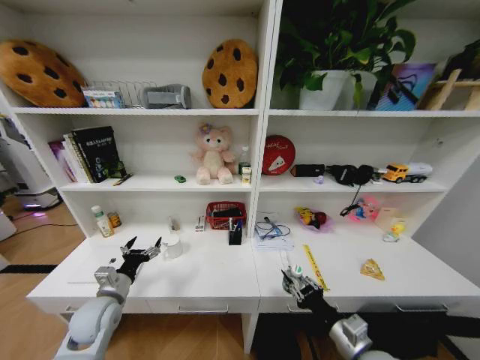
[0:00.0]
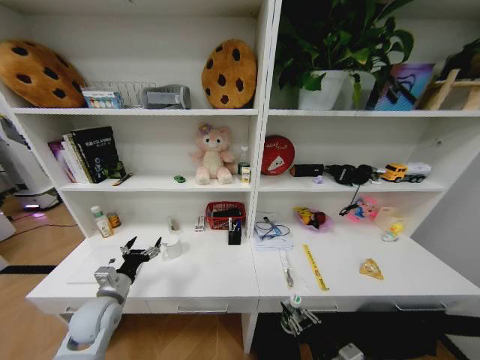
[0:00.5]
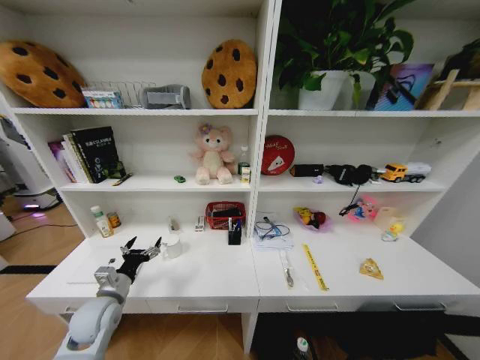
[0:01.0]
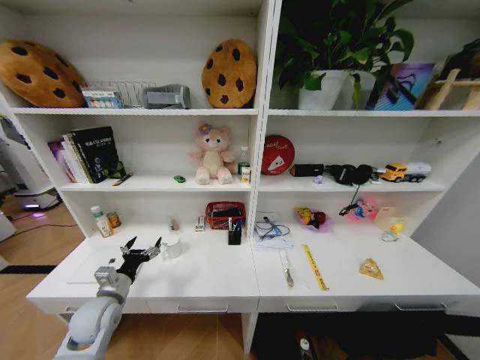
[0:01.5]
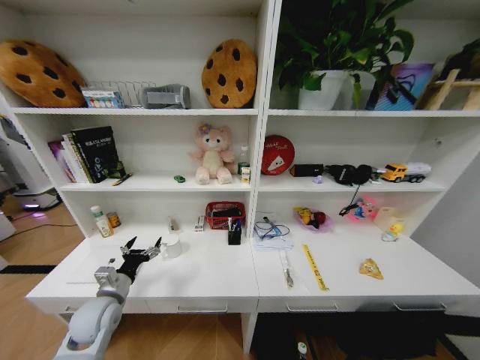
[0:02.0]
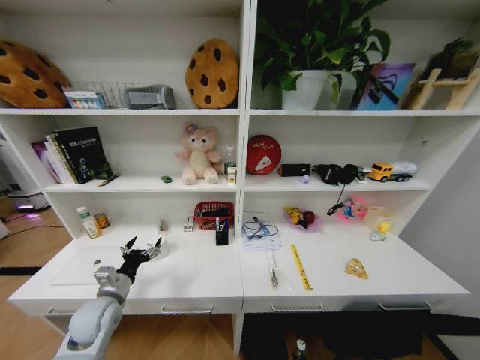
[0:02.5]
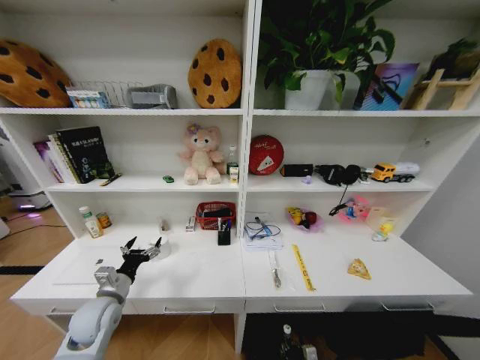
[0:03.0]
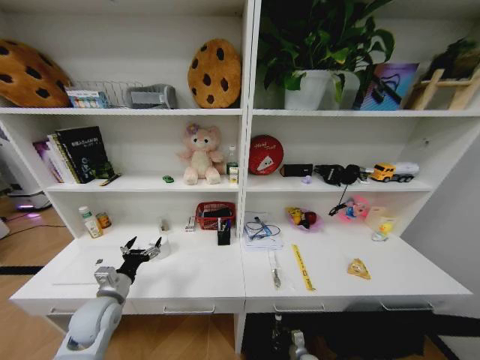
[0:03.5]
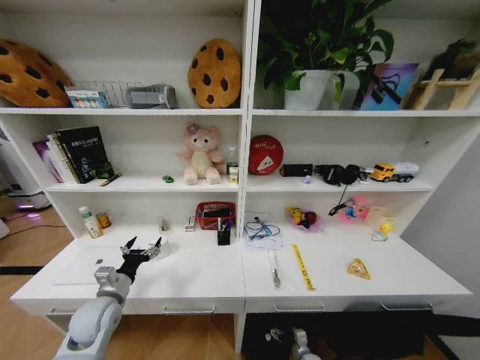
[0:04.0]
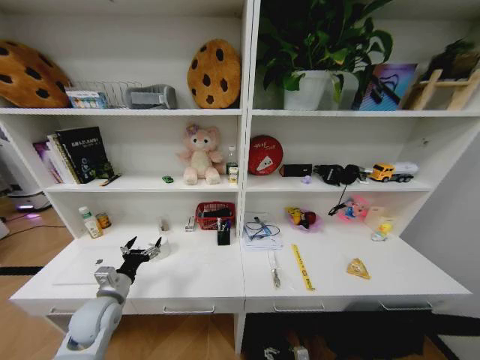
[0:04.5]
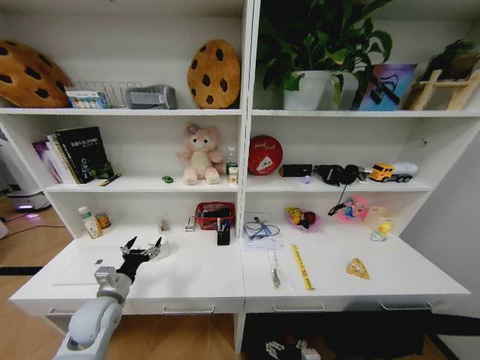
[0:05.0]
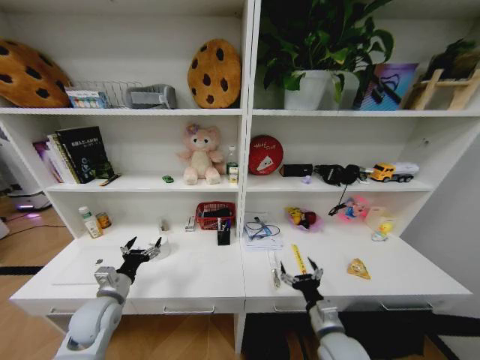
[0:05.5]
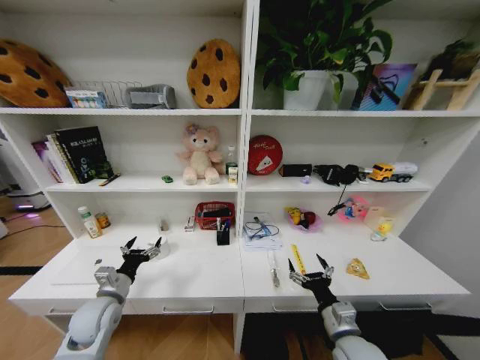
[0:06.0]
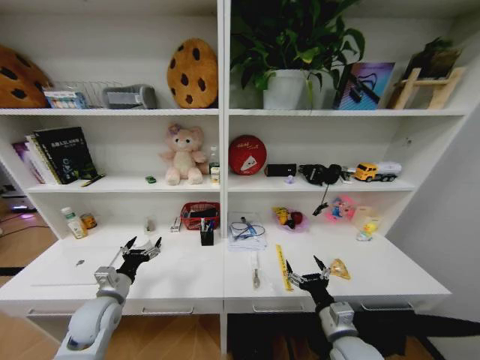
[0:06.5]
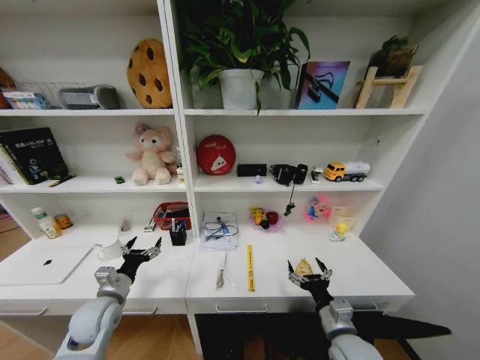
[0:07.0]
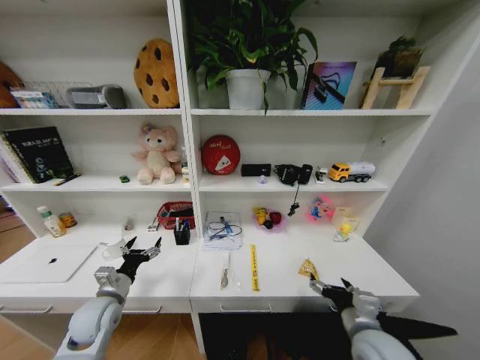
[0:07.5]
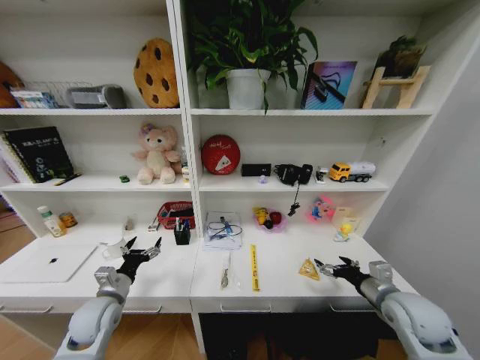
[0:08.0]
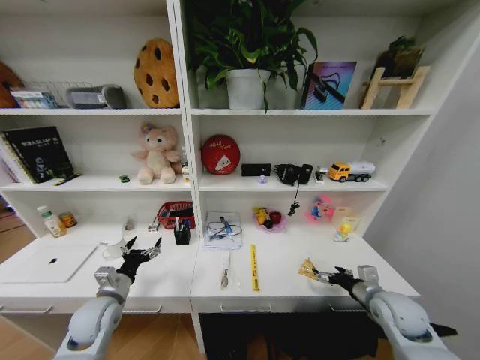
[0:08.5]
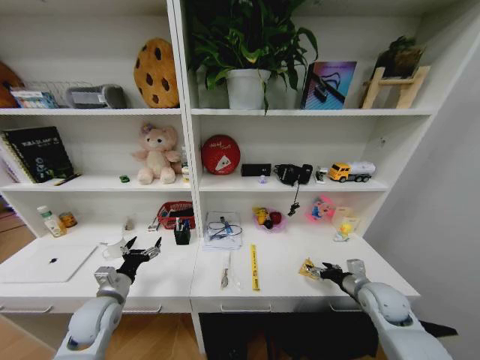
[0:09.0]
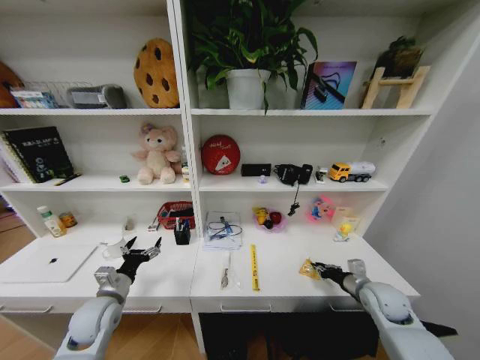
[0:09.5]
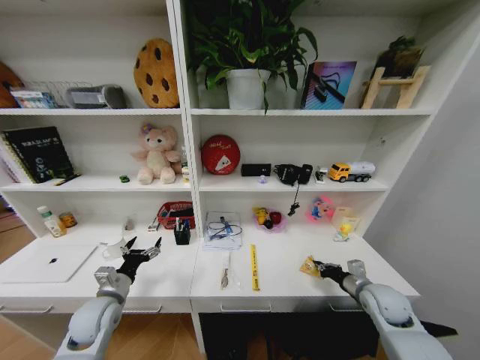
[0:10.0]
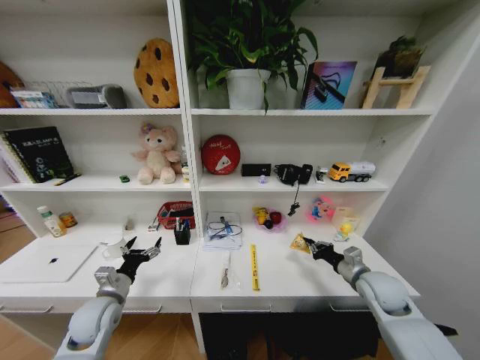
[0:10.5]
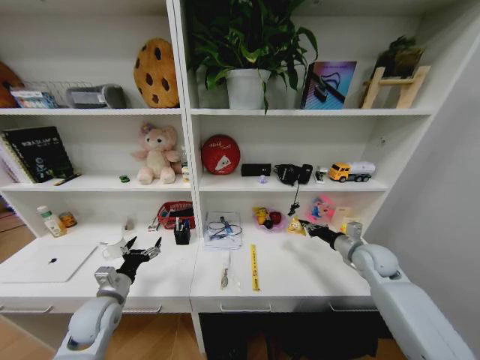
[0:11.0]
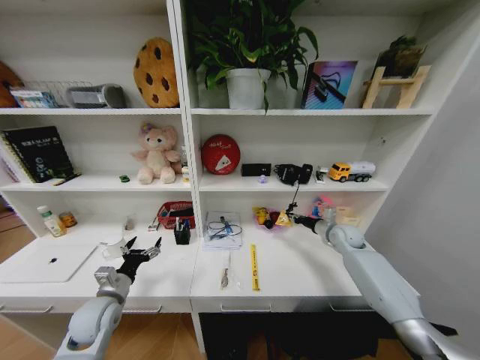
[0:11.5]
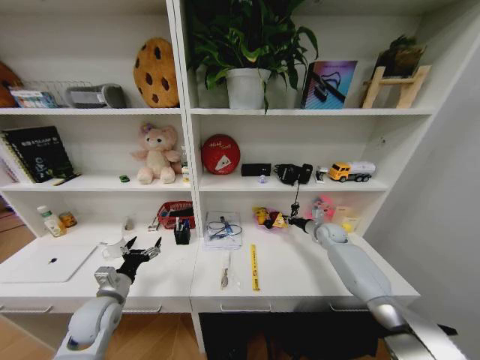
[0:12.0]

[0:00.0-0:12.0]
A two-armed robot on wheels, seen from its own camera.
Task of the whole recording: Organize the objects on the table.
0:00.0 to 0:02.0: The right gripper goes some 25 cm downward.
0:02.0 to 0:04.0: The right gripper is displaced forward and downward by about 15 cm, and opens up.
0:04.0 to 0:06.0: The right gripper is displaced upward by approximately 35 cm.
0:06.0 to 0:08.0: The right gripper heads to the right, upward and forward, covering some 15 cm.
0:08.0 to 0:10.0: The right gripper heads downward and forward, covering about 10 cm, and closes.
0:10.0 to 0:12.0: The right gripper is displaced forward by roughly 25 cm.

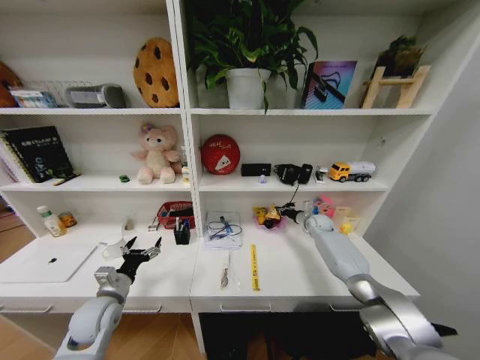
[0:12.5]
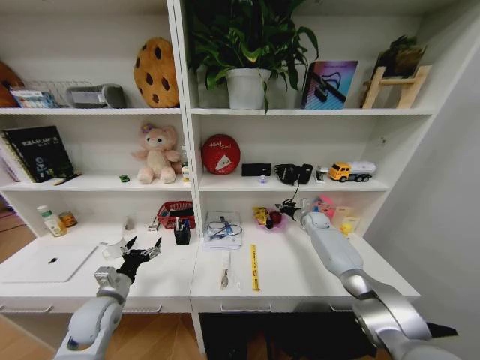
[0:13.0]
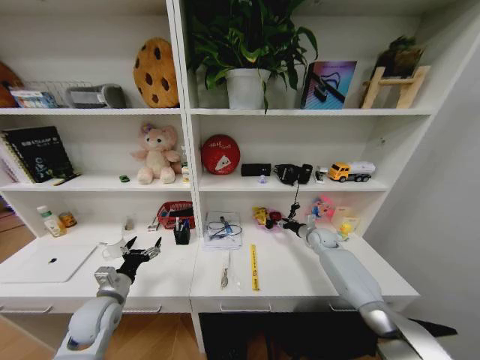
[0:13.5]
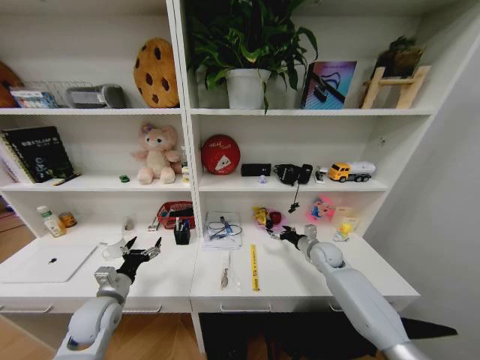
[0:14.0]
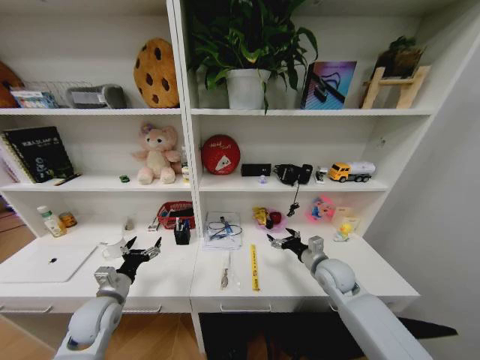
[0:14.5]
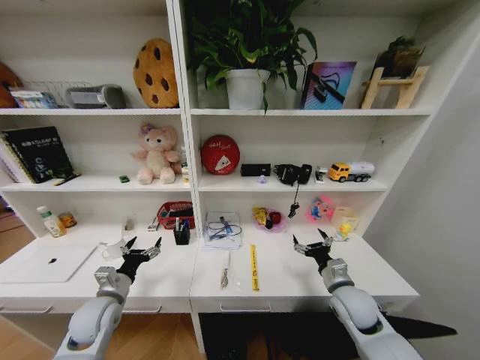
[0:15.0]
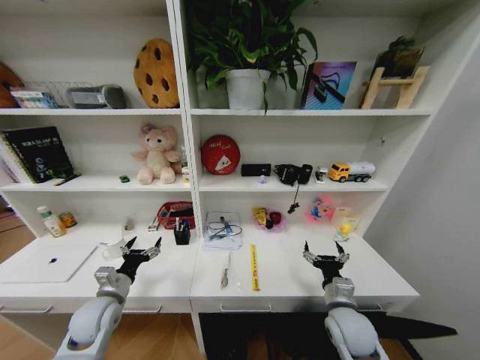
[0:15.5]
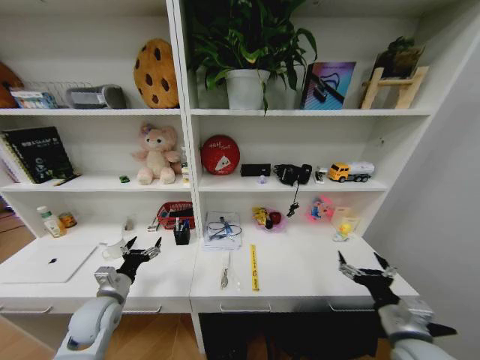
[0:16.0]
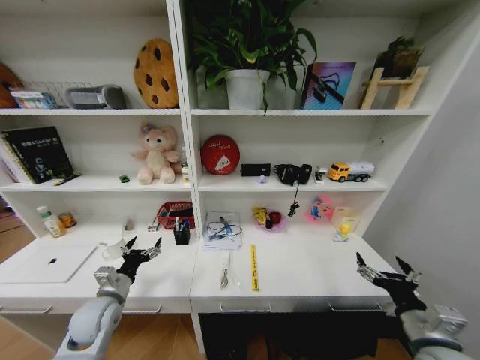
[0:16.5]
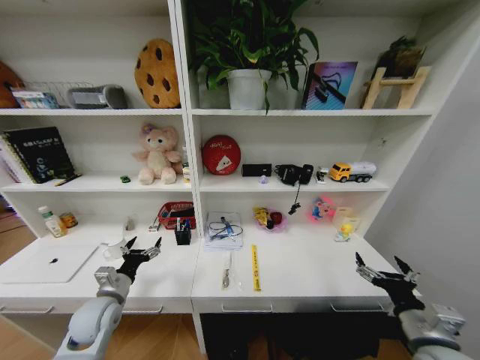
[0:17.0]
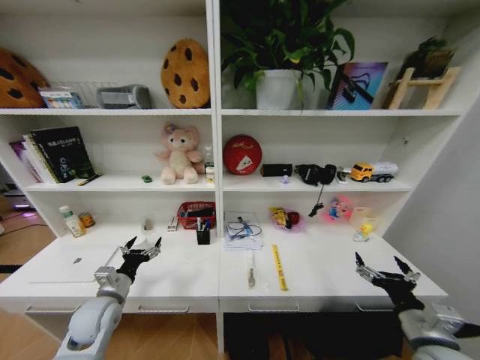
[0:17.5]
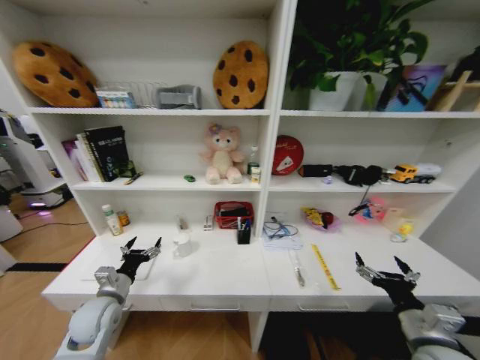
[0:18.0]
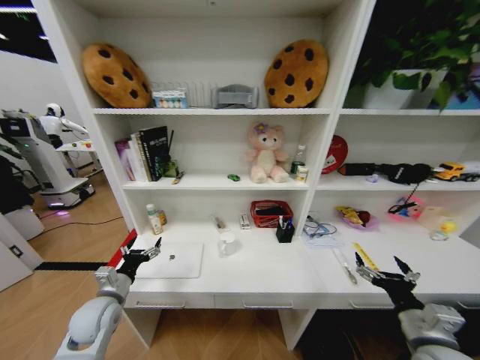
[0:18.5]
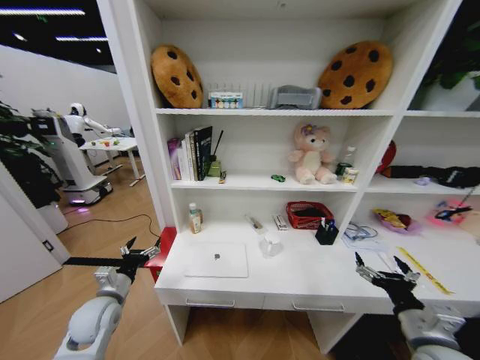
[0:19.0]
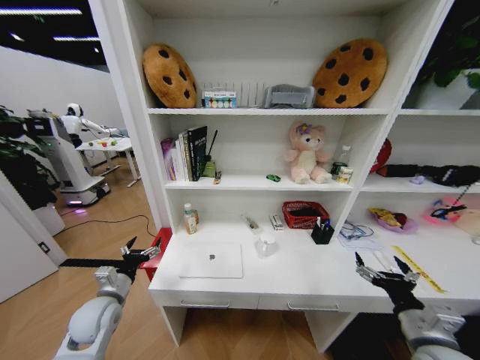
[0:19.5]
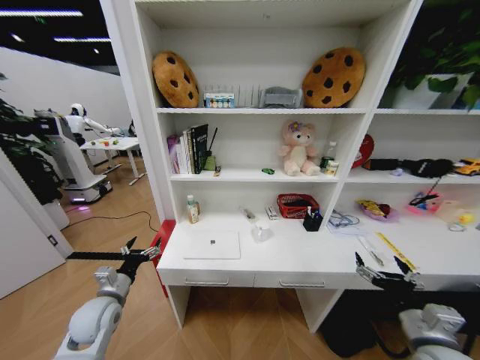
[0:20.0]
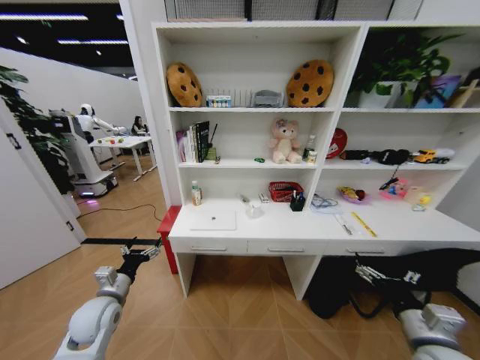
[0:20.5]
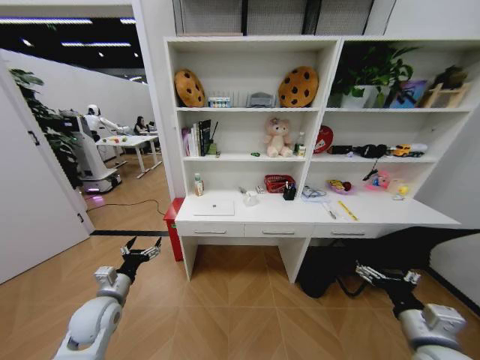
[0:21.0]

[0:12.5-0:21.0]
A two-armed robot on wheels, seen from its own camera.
Task of the whole recording: Organize the objects on the table.
0:12.5 to 0:14.5: The right gripper goes some 20 cm backward, and opens its fingers.
0:14.5 to 0:16.5: The right gripper goes roughly 25 cm backward and to the right.

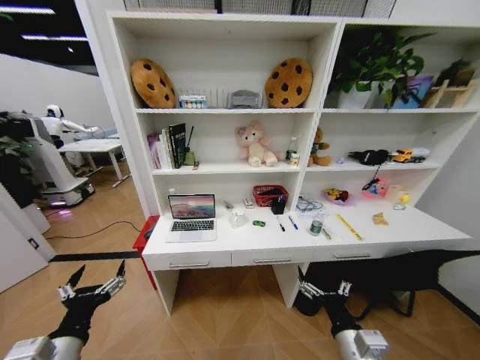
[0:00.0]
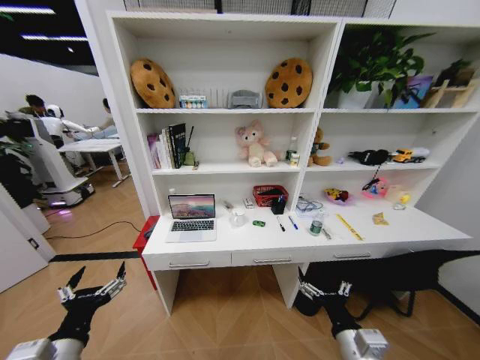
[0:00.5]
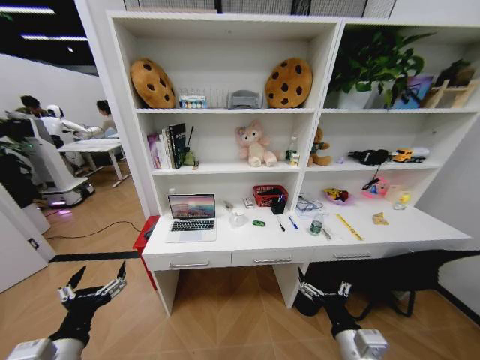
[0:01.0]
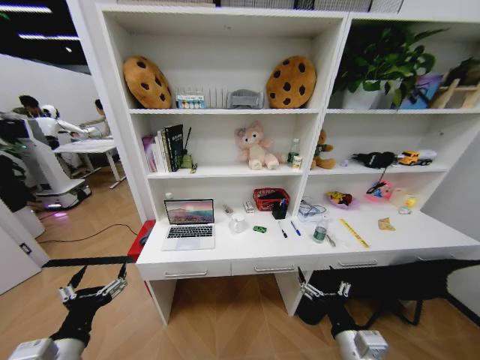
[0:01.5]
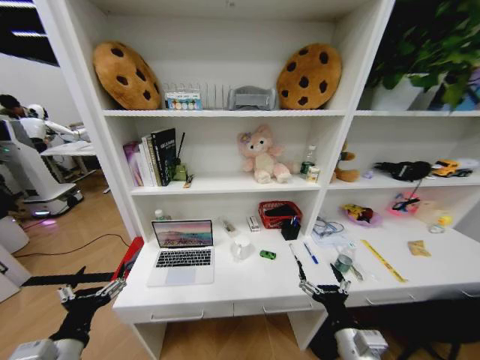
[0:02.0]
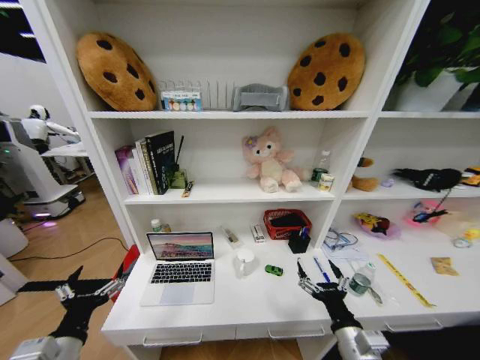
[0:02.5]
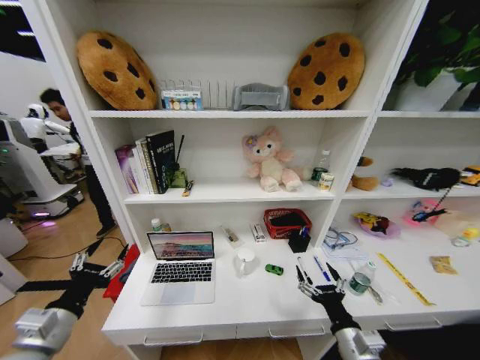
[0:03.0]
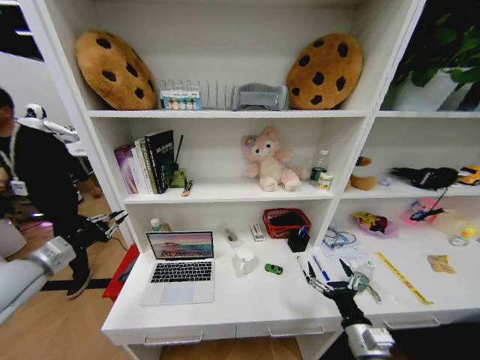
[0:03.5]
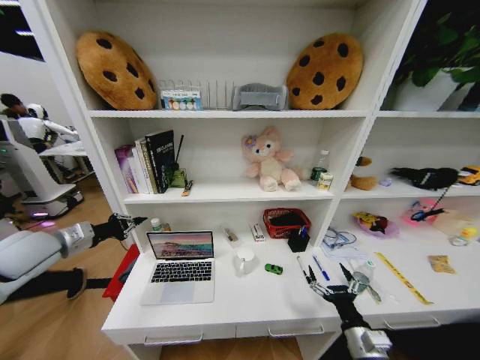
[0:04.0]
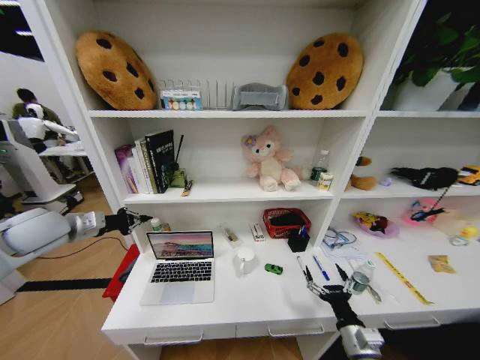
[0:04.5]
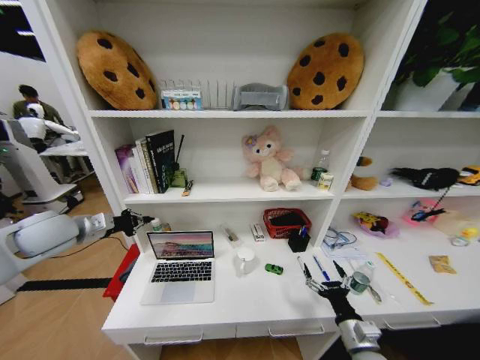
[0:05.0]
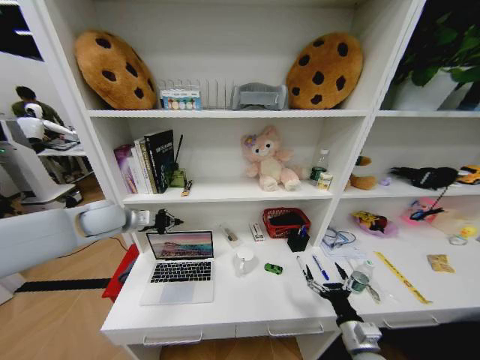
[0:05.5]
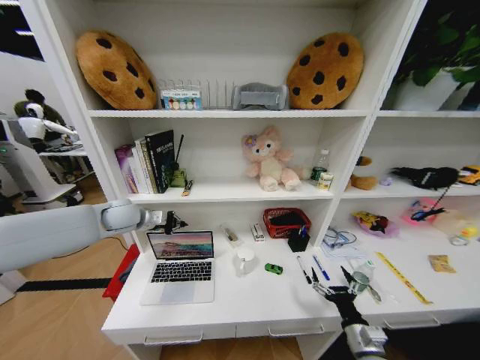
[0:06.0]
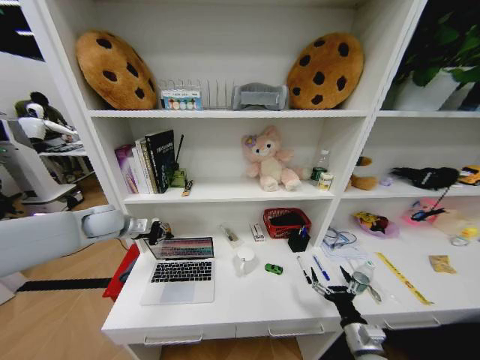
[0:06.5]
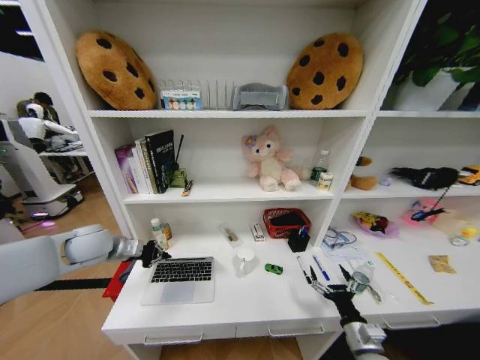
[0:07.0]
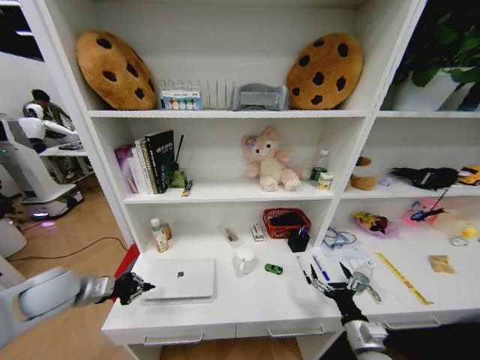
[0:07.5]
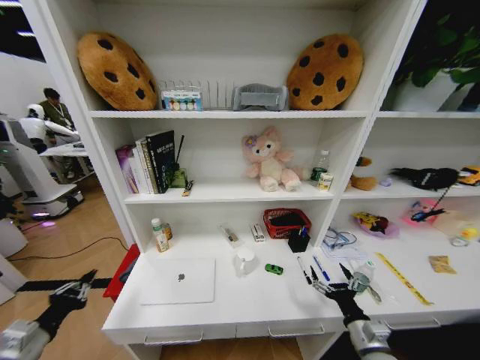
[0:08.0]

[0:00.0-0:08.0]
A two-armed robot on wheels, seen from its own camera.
Task of the whole recording: Organize the objects on the table.
0:02.0 to 0:04.0: The right gripper shifts approximately 5 cm to the right, while the left gripper goes approximately 30 cm forward, to the left and upward, and closes its fingers.
0:04.0 to 0:06.0: The left gripper moves to the right and forward, roughly 20 cm.
0:06.0 to 0:08.0: The left gripper heads backward and downward, covering about 35 cm.
